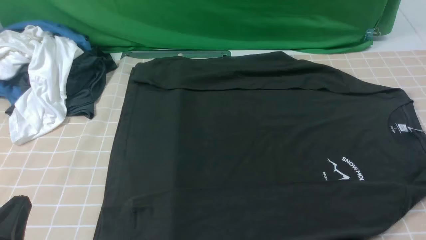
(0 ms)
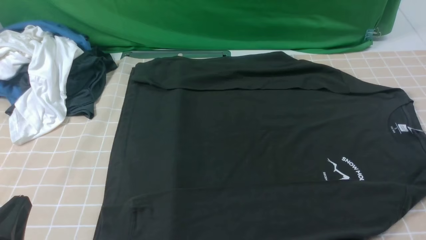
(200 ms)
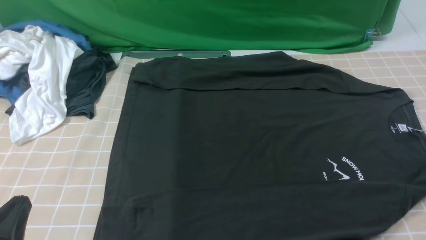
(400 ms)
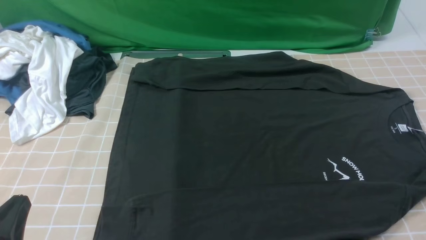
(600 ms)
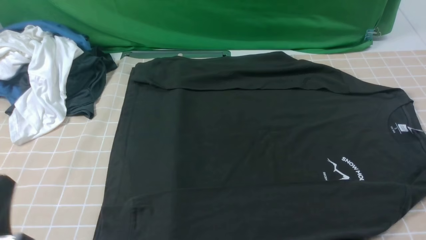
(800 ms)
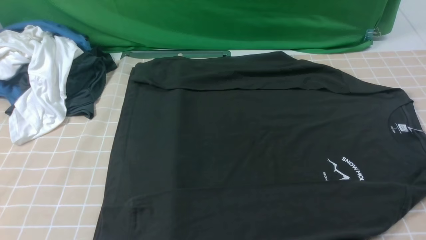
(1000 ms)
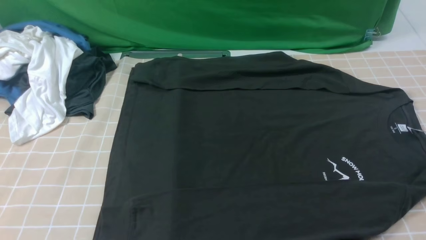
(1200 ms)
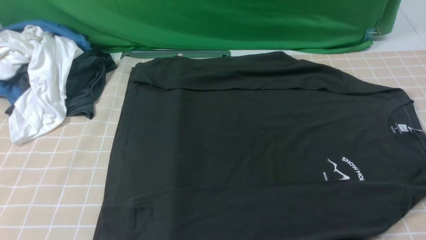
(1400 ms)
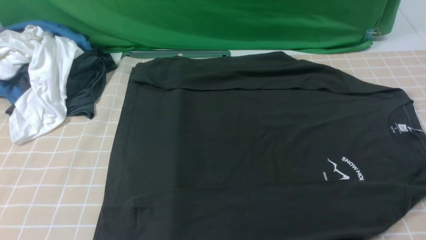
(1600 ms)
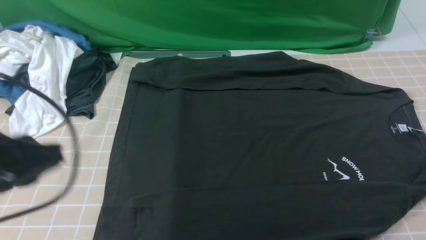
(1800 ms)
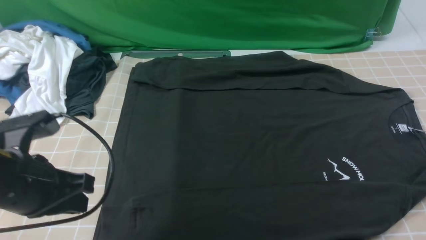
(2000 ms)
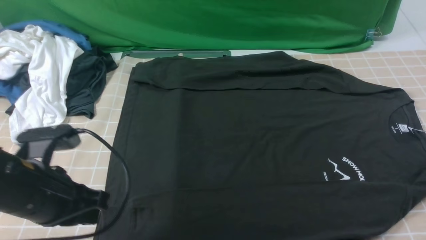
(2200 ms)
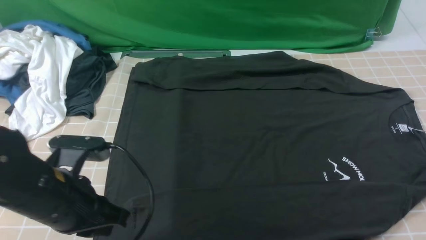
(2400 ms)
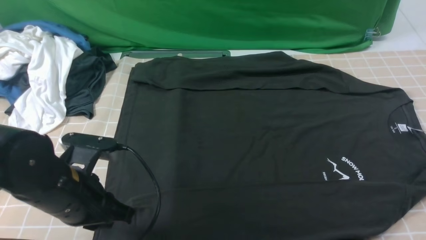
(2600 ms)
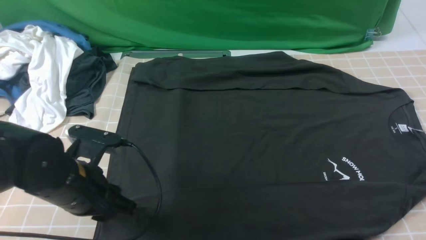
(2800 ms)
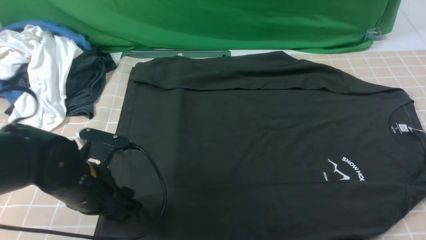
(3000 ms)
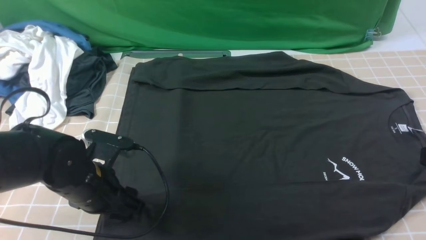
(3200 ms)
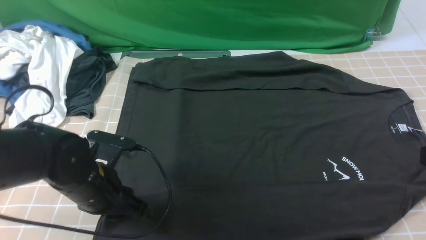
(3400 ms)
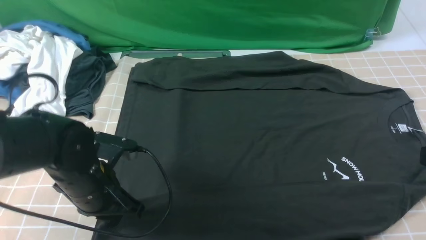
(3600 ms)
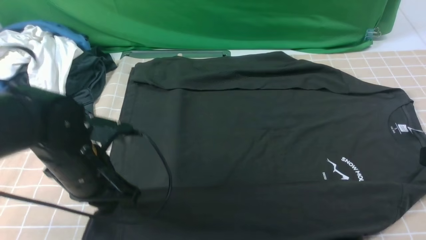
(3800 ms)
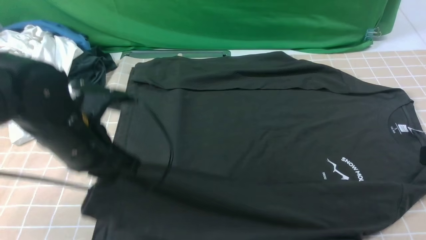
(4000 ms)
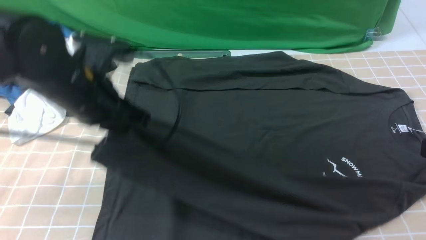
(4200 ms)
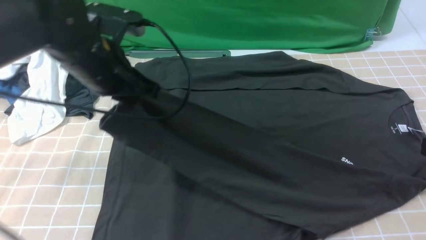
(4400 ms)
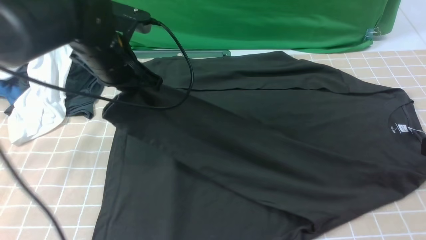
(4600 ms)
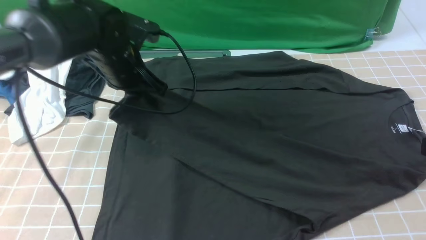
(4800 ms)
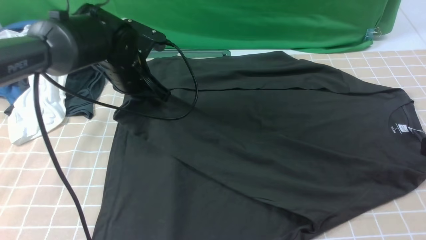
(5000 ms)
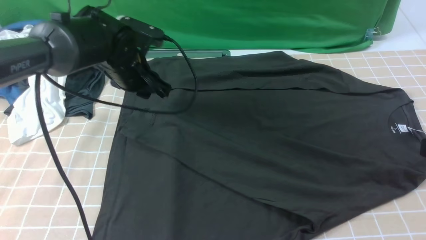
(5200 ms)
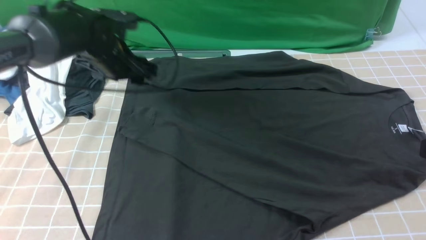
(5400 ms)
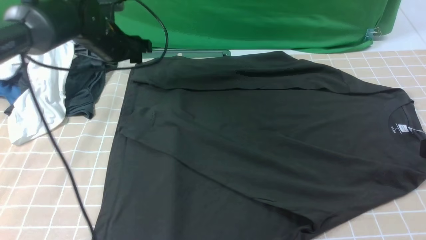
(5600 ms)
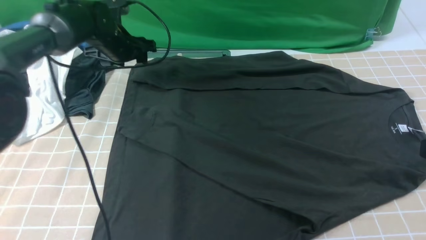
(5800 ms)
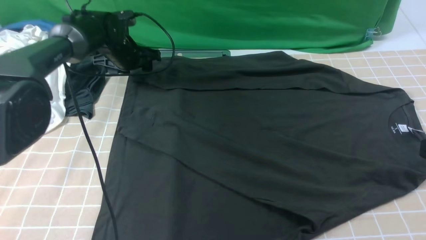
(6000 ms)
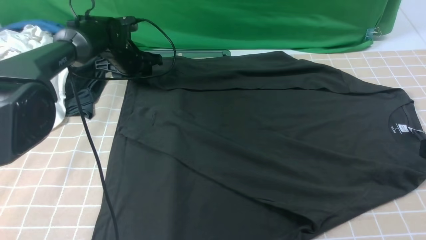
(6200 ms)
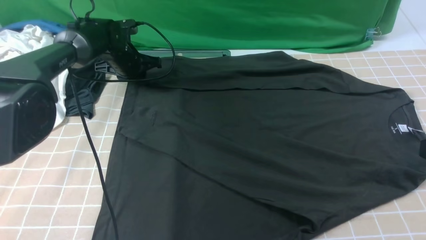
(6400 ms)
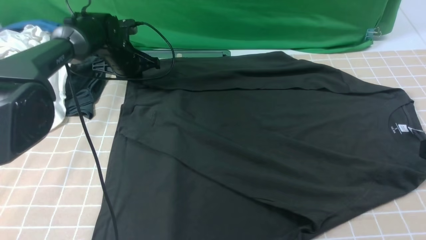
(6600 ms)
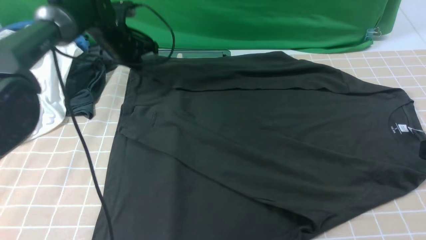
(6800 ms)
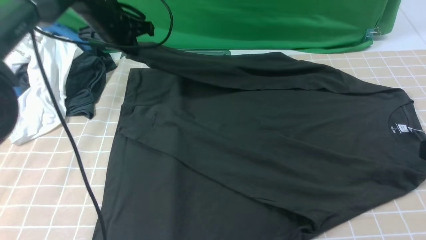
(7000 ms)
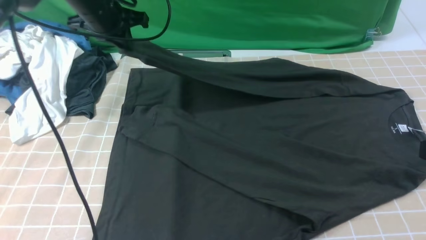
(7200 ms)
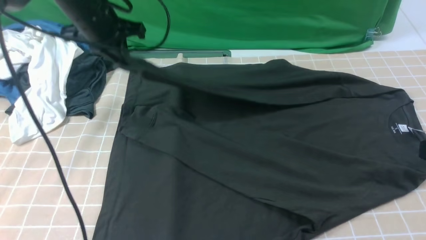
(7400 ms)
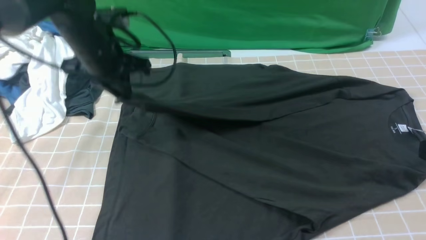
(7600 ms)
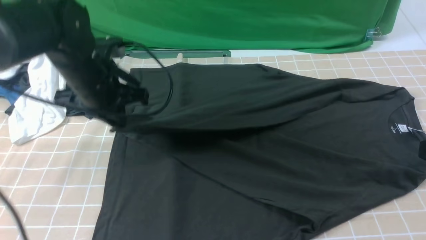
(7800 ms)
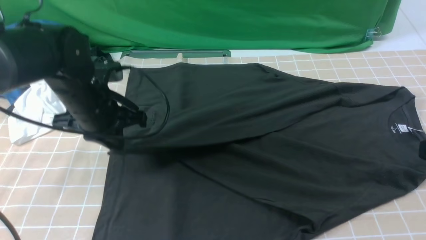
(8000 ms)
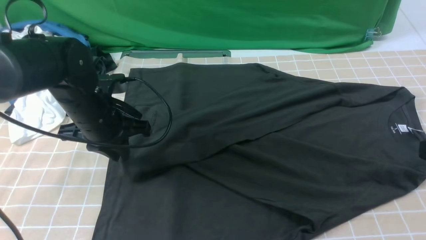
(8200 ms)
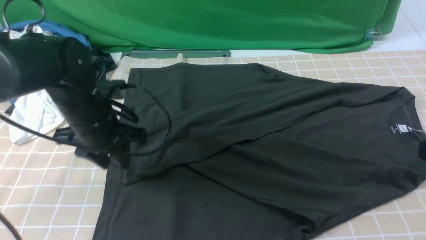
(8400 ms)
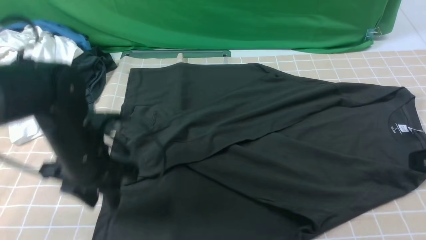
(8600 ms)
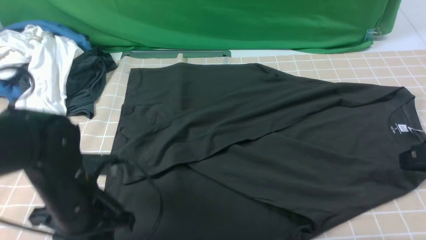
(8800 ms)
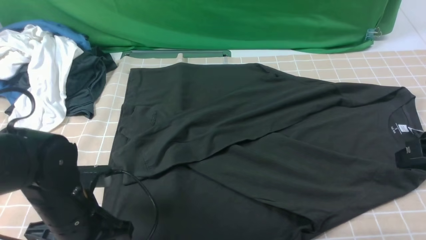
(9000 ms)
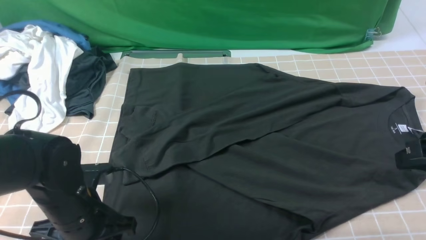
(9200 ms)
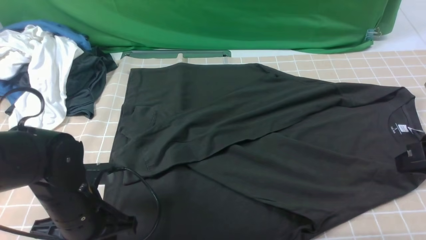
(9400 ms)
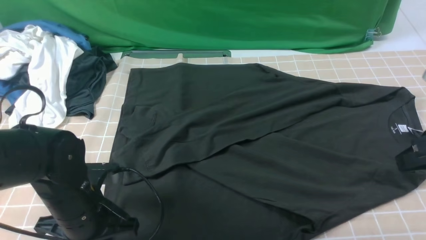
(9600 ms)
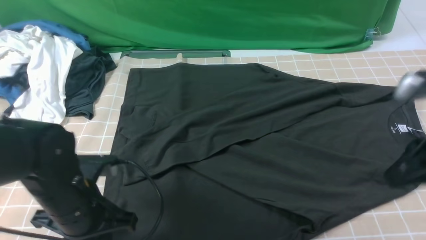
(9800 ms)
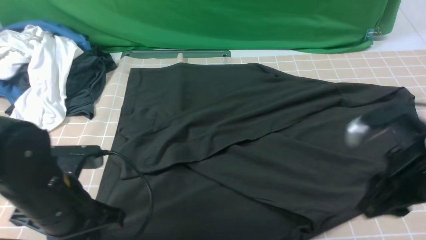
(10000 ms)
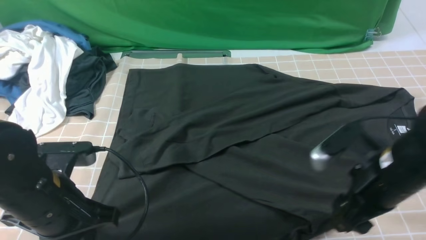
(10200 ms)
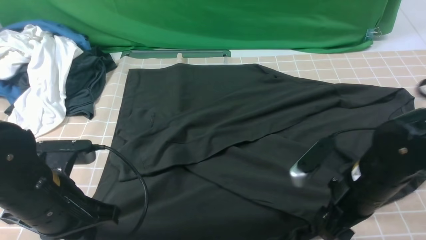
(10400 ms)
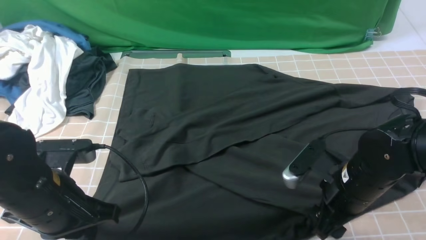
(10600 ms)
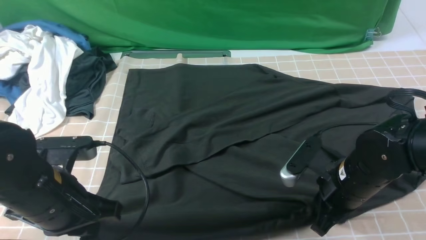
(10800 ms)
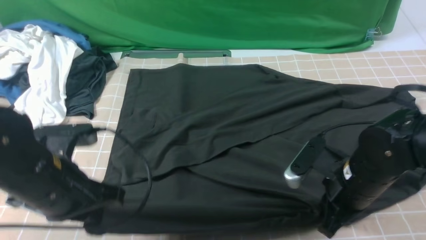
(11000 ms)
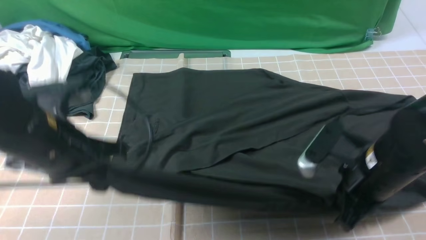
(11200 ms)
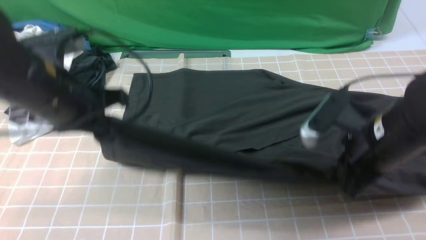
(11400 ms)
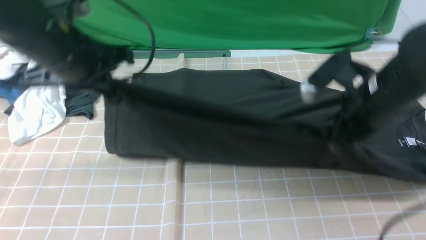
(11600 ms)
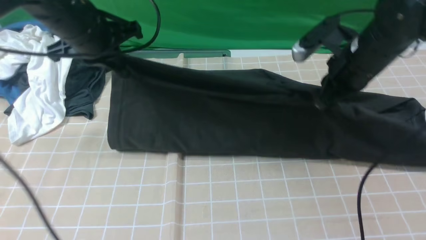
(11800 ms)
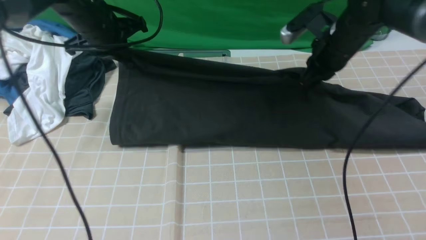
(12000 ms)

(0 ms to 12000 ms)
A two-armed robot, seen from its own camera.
Step, 0 ms - 3400 ms: use the left arm to clamp the cuff closest to it.
Step, 3600 ms - 5000 ms: use the left arm to drag and place the cuff at the centered position on the left edge of the fabric.
Step, 5200 ms - 6400 ms: use the left arm to clamp the cuff farthest from it.
Step, 6600 ms - 8000 ms: use the left arm to drag and drop the cuff onto the cuff closest to the left arm.
Step, 8400 ms - 10800 ms: use both arms simultaneously to clamp the lower edge of the clothing fabric.
0 ms - 1600 ms: The left gripper heads upward, covering roughly 15 cm.
1600 ms - 3000 ms: The right gripper heads upward and forward, covering approximately 10 cm, and closes its fingers. The left gripper is displaced downward, forward and to the right by roughly 20 cm, and opens up.
3000 ms - 4400 ms: The left gripper is displaced upward and forward by approximately 15 cm, and closes up.
4400 ms - 6000 ms: The left gripper is displaced forward and downward by some 25 cm, and opens up.
6000 ms - 7600 ms: The left gripper moves backward and upward, roughly 15 cm, and closes its fingers.
7600 ms - 9000 ms: The left gripper heads backward and downward, covering about 20 cm, and opens, while the right gripper shifts by about 5 cm.
9000 ms - 10400 ms: The right gripper moves downward and to the left, some 15 cm, and opens; the left gripper heads upward, covering roughly 5 cm, and closes its fingers.
10400 ms - 12000 ms: The two grippers go some 25 cm forward. The right gripper closes.

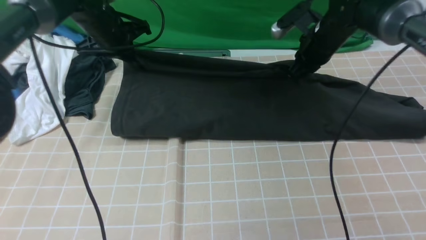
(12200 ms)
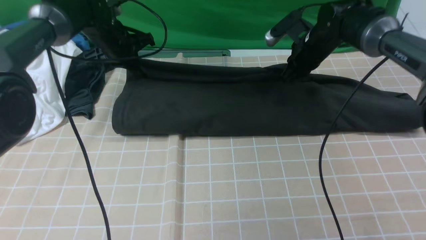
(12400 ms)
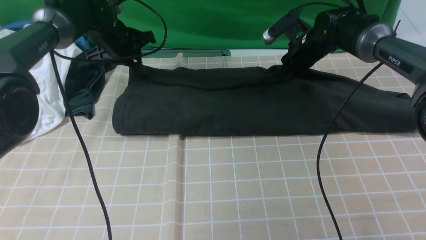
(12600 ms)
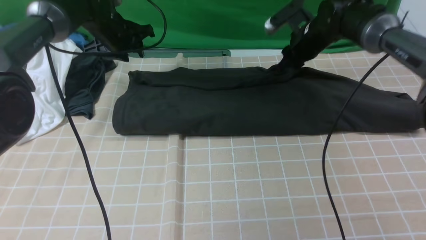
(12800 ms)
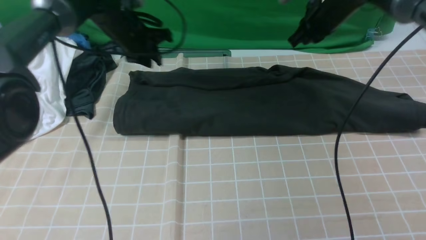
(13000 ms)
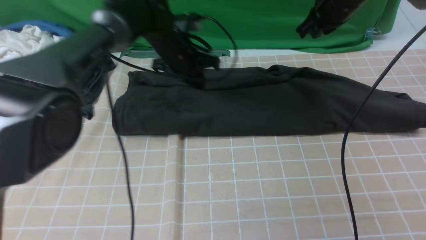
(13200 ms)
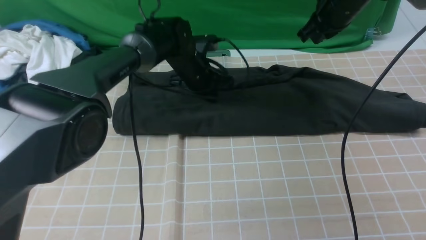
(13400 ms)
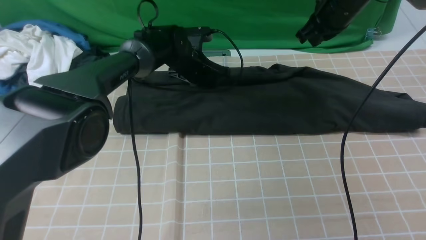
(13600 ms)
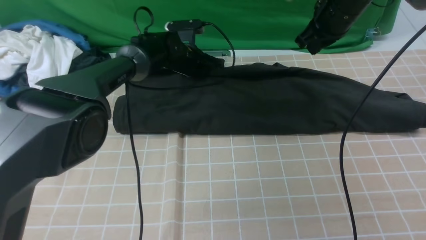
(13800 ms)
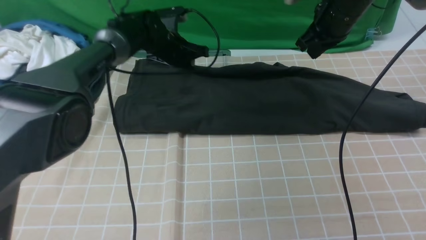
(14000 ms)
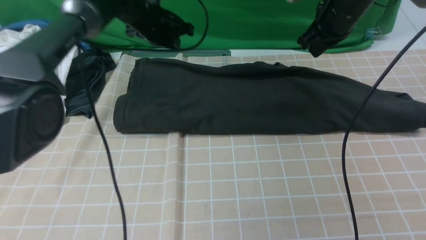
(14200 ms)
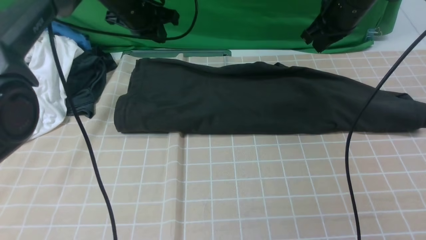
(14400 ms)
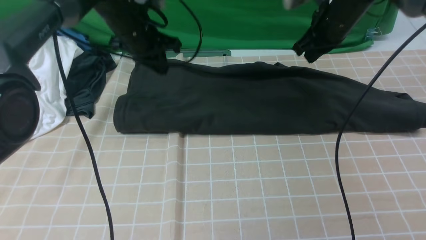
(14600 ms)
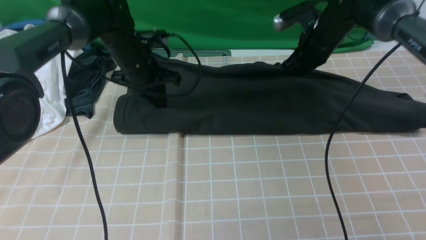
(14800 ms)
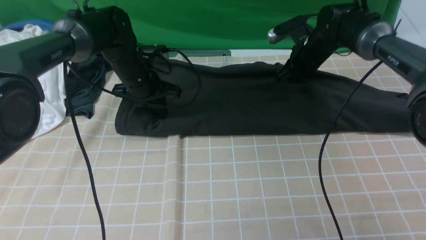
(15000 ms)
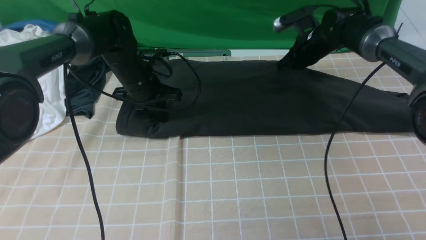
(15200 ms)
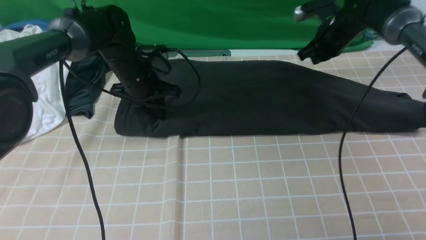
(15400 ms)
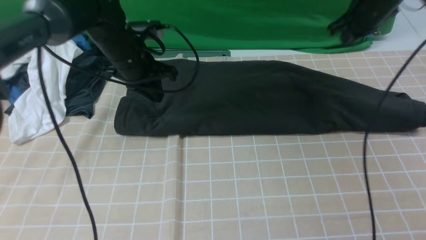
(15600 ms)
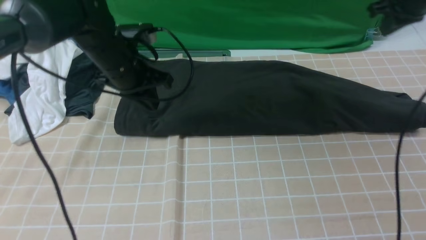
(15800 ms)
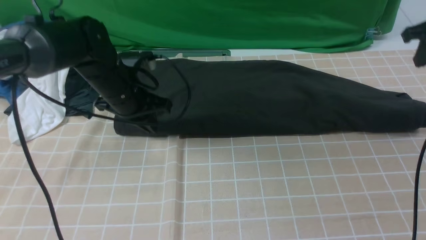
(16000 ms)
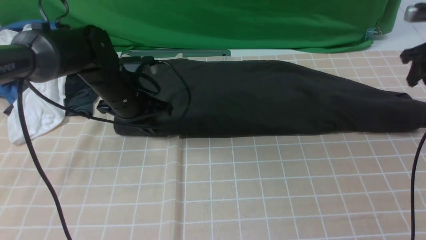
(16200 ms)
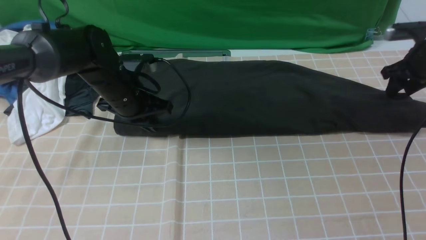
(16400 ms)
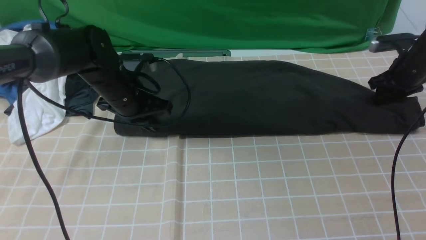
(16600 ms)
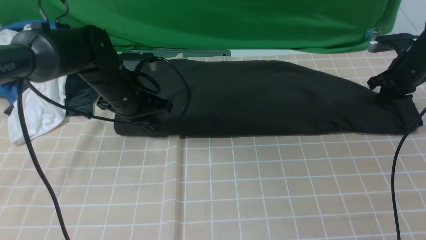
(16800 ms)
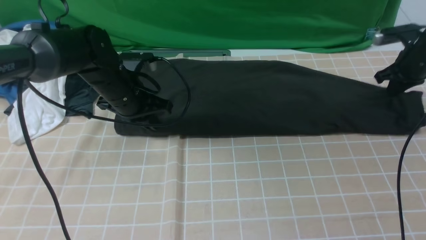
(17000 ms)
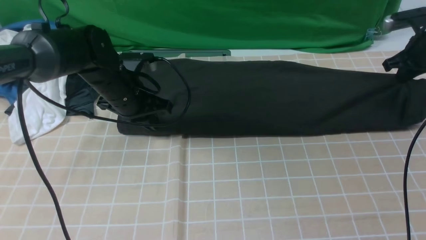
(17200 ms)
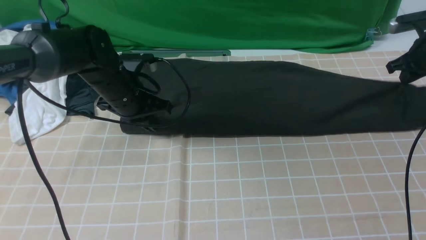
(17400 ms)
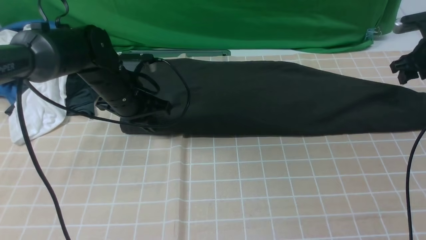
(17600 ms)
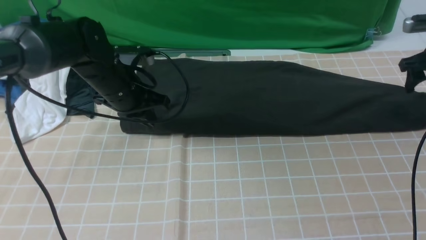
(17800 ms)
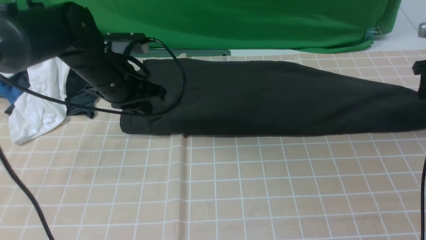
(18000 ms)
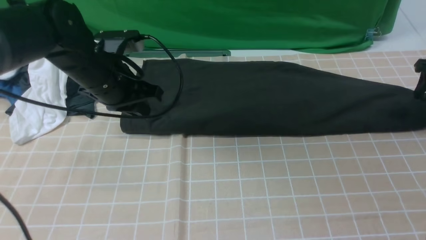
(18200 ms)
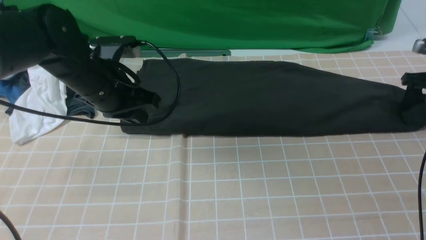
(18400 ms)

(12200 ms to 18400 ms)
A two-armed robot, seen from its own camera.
12200 ms - 13800 ms: The right gripper moves upward, roughly 10 cm. The left gripper heads to the right and downward, covering some 15 cm, and opens and closes again.
13800 ms - 15400 ms: The left gripper is displaced backward and to the left by some 10 cm. The right gripper travels downward, forward and to the right by about 10 cm.
15400 ms - 16800 ms: The right gripper shifts about 15 cm to the right and downward, and opens and closes again; the left gripper moves backward, approximately 5 cm.
16800 ms - 18400 ms: The right gripper shifts roughly 5 cm to the right, and opens; the left gripper travels upward by roughly 5 cm.
